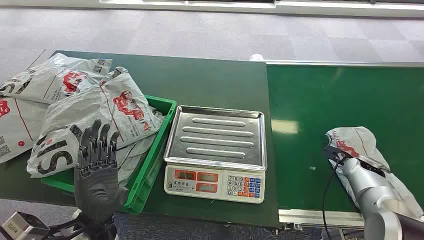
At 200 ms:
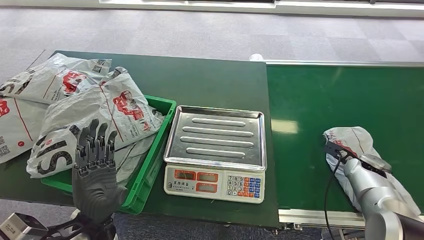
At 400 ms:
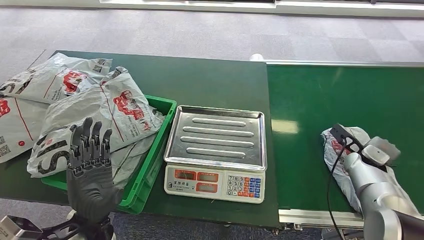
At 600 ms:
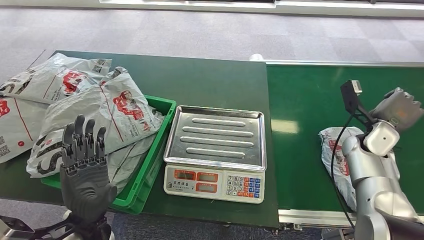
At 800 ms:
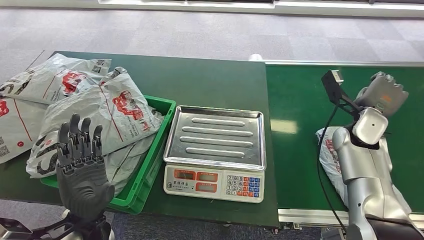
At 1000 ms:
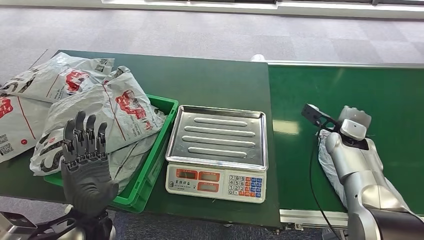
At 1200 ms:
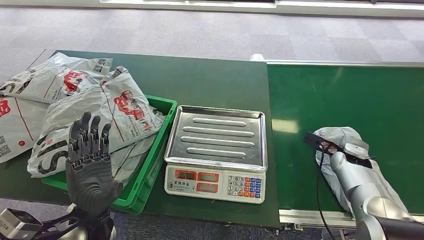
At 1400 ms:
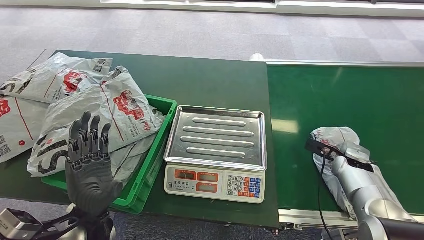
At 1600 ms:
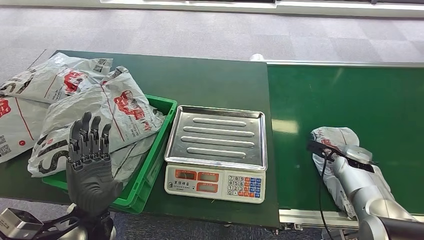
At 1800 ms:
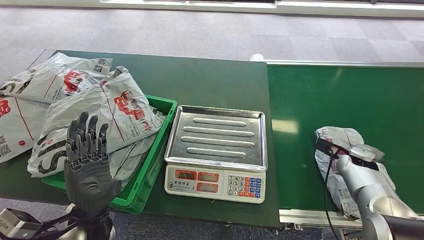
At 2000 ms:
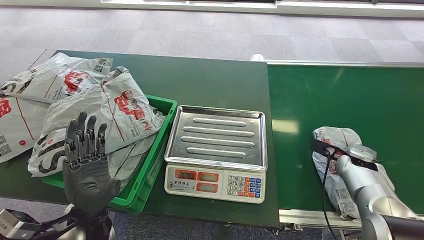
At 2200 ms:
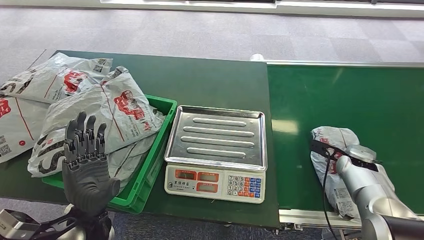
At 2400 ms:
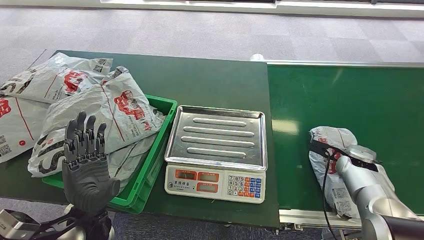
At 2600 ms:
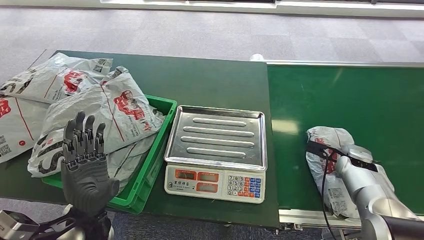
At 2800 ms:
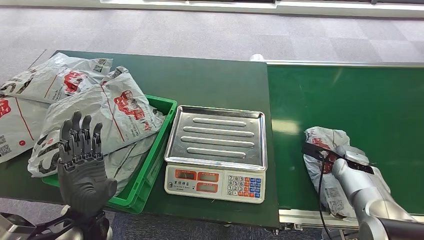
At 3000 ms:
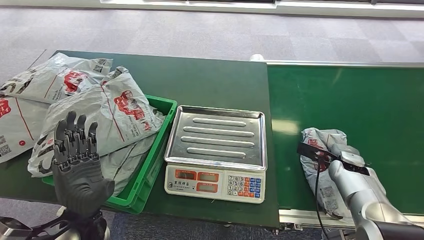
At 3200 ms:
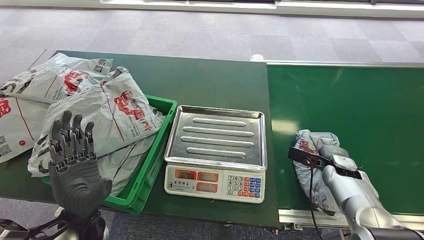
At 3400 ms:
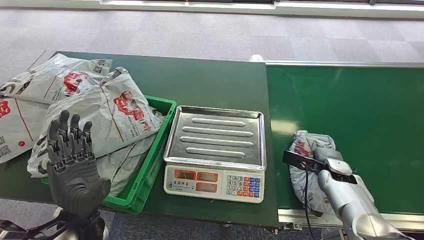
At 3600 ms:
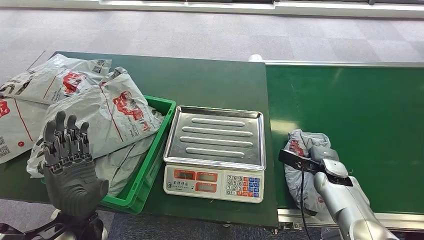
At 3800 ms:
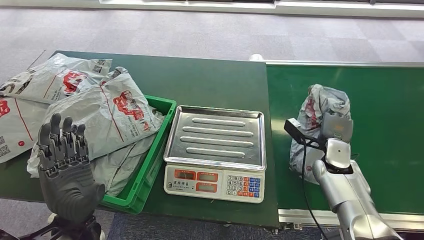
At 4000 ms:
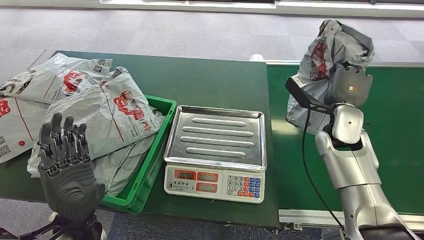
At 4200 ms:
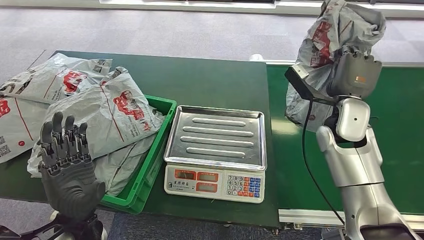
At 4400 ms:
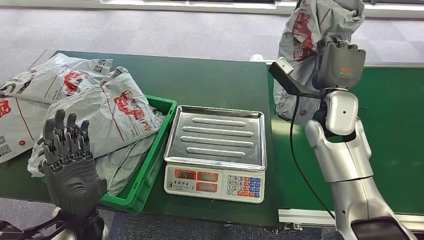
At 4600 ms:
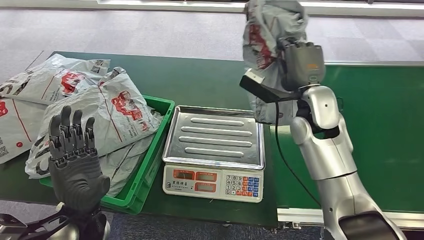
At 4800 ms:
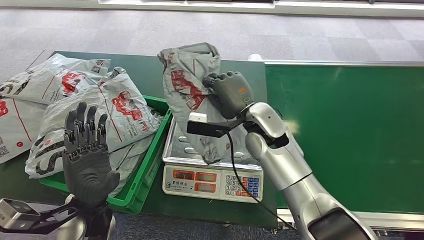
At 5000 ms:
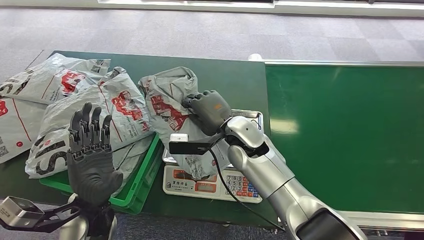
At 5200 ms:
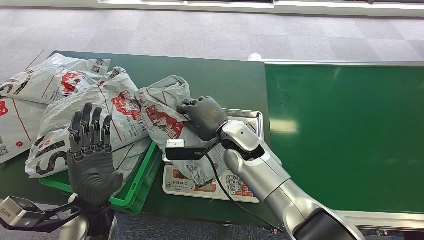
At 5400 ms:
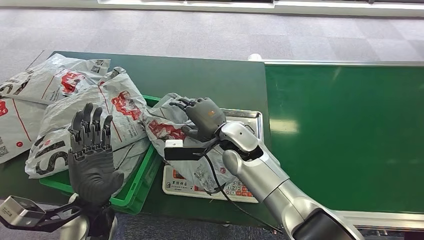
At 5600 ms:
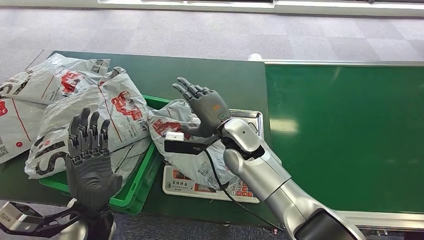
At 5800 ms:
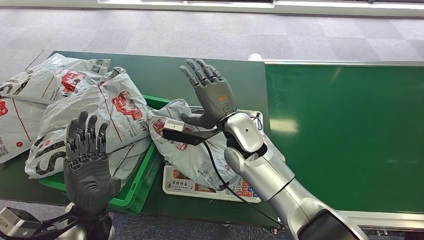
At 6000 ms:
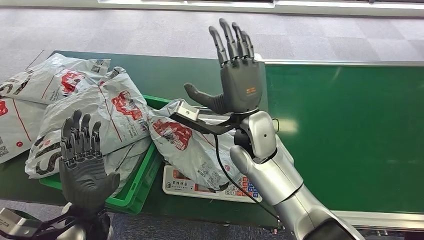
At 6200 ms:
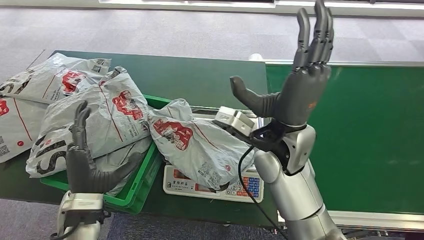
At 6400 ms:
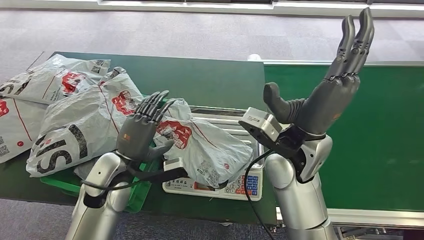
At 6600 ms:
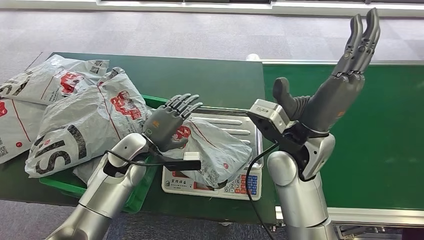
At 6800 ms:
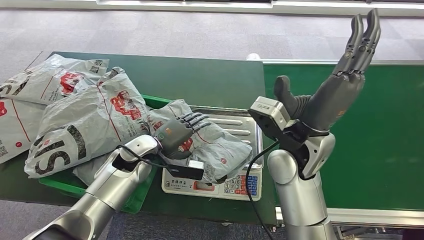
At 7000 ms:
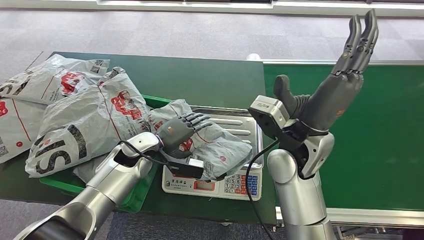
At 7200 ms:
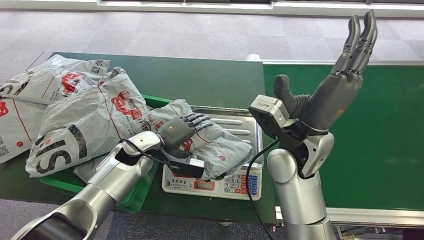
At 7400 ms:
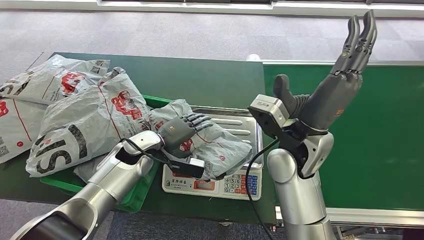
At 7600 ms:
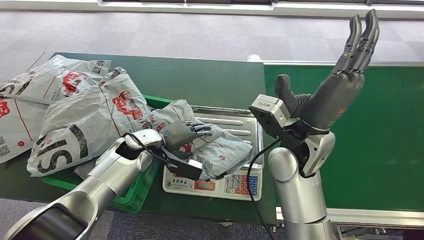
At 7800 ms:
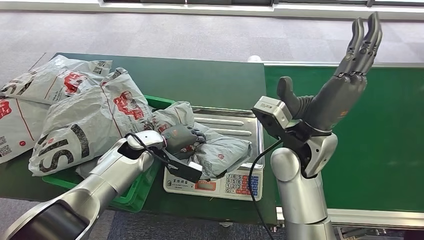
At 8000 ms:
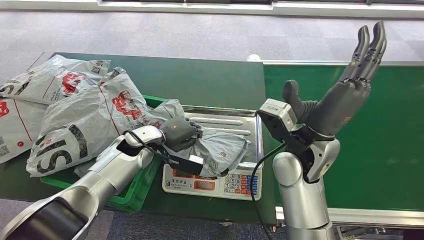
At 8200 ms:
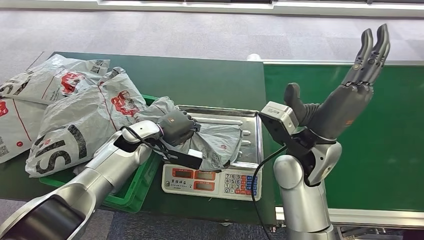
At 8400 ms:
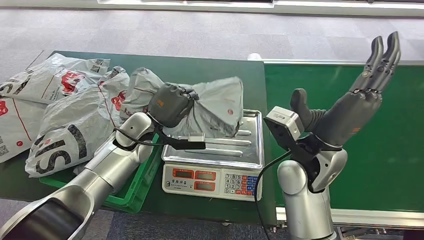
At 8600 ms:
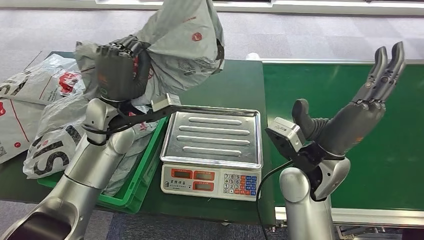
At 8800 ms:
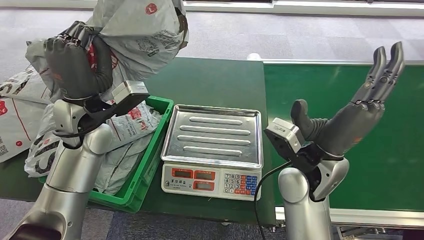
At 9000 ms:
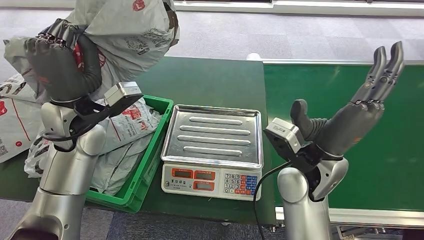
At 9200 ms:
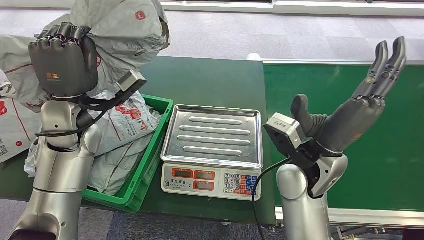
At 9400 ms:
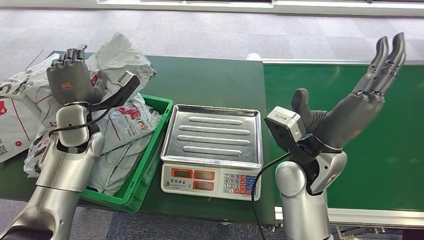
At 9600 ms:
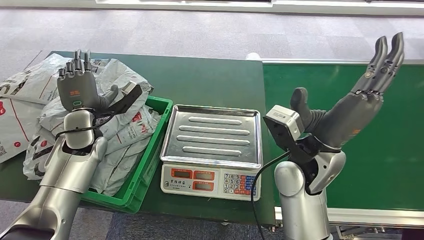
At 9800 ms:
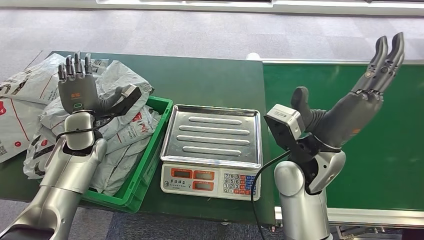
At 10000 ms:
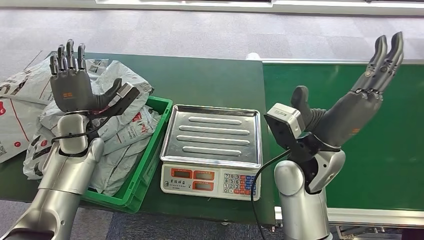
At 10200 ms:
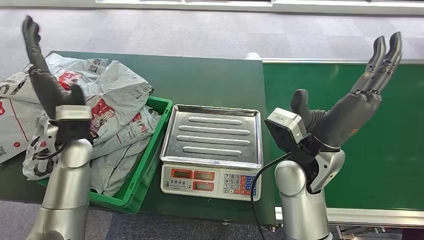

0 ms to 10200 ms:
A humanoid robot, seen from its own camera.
Step, 0 ms to 4200 ms: Pick up the package from the conveyor belt.
Step, 4400 ms to 6200 ms: Place the package onto the inbound machine.
Step, 6400 ms to 8600 ms: Pick up the package from the inbound machine.
Step, 8800 ms to 10000 ms: Place the package into the parcel locker.
1400 ms to 3000 ms: The hands move only a little.
3000 ms to 4400 ms: The right hand travels upward and to the left by approximately 25 cm.

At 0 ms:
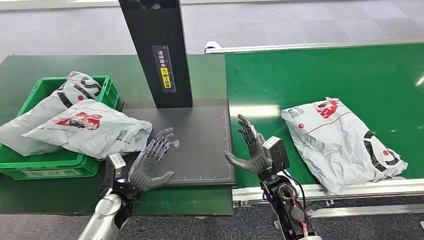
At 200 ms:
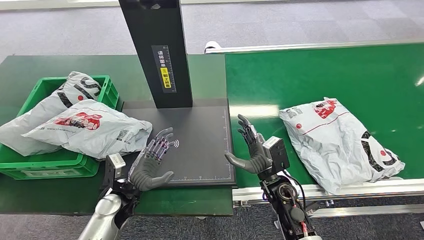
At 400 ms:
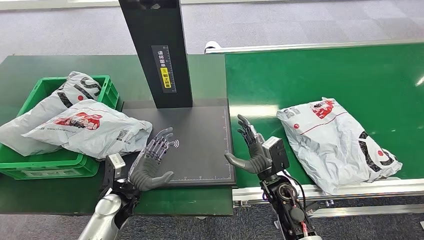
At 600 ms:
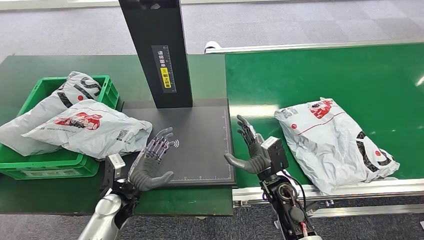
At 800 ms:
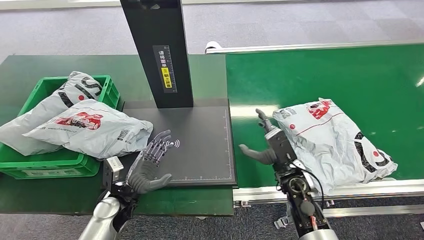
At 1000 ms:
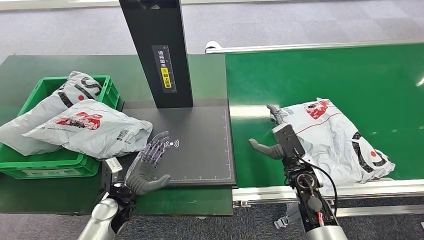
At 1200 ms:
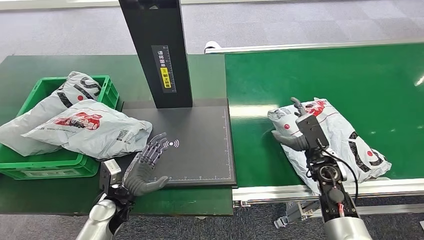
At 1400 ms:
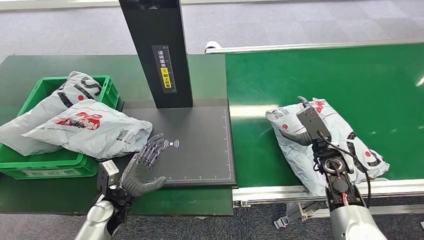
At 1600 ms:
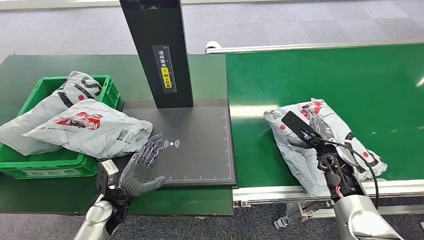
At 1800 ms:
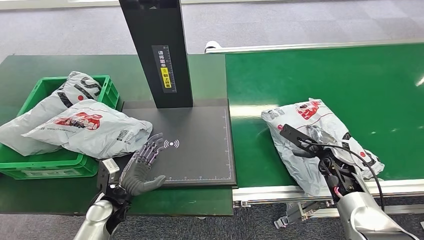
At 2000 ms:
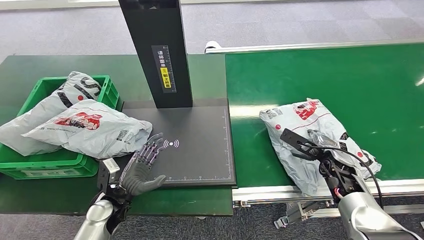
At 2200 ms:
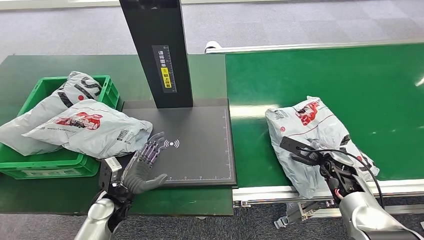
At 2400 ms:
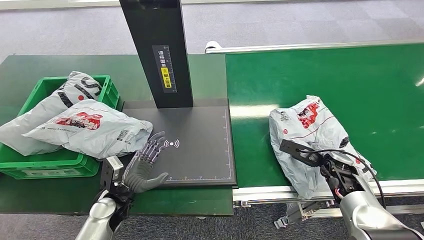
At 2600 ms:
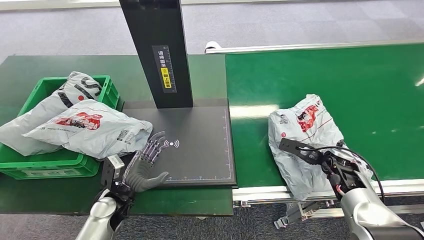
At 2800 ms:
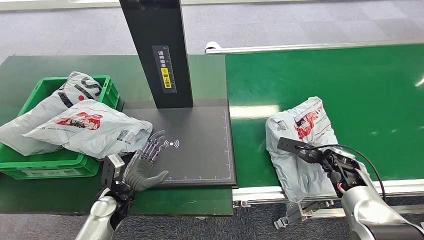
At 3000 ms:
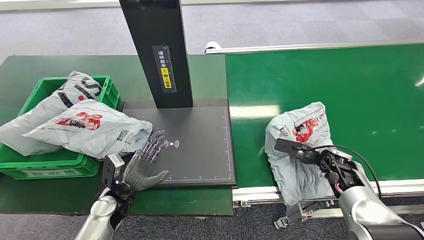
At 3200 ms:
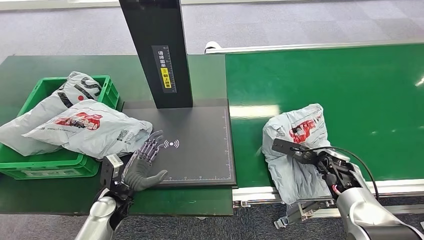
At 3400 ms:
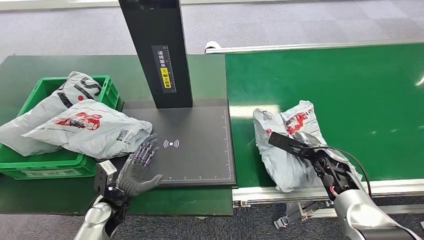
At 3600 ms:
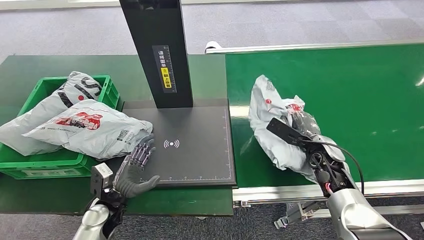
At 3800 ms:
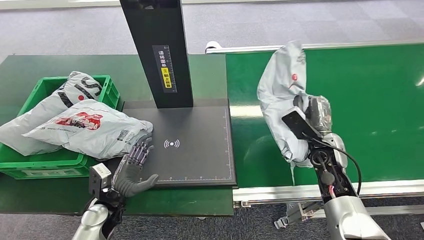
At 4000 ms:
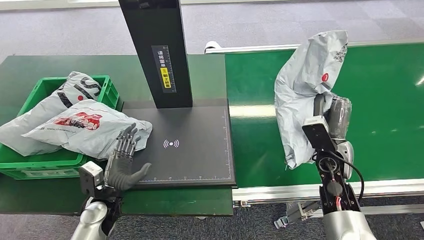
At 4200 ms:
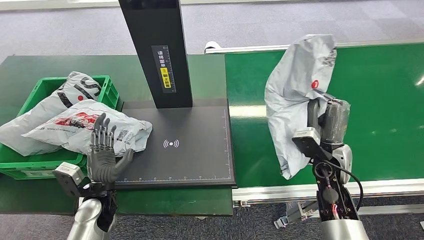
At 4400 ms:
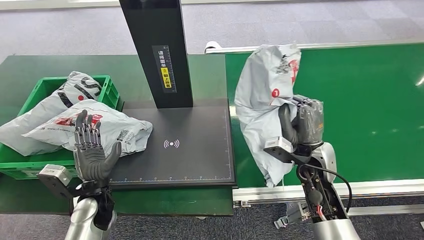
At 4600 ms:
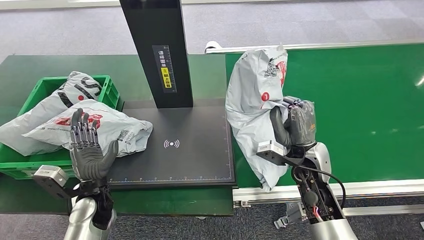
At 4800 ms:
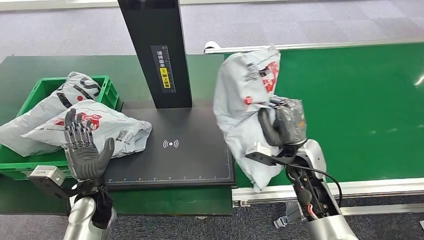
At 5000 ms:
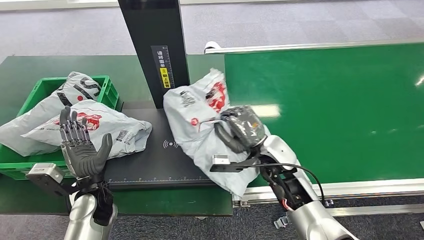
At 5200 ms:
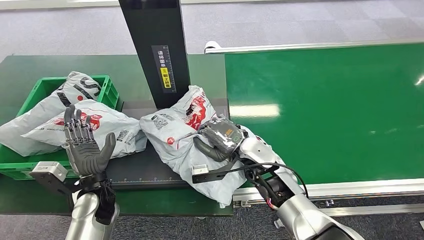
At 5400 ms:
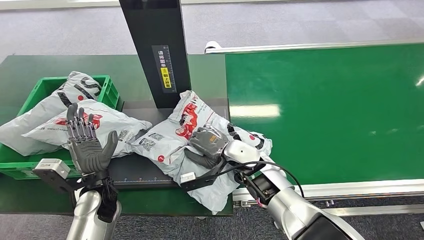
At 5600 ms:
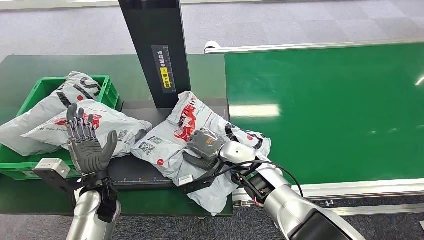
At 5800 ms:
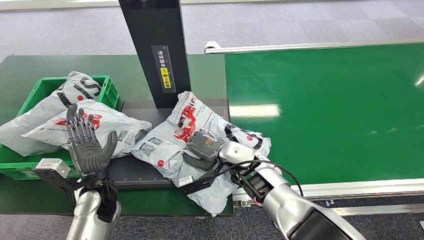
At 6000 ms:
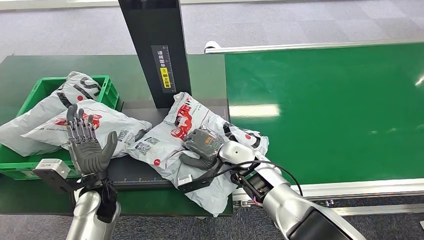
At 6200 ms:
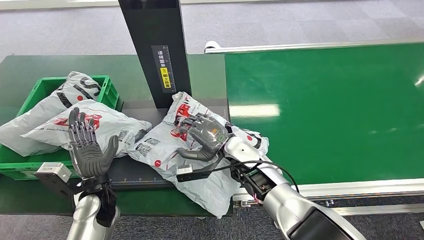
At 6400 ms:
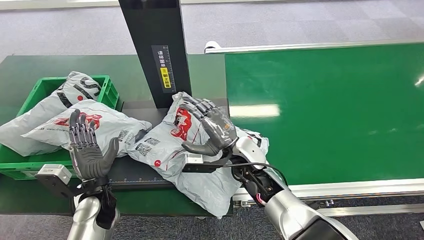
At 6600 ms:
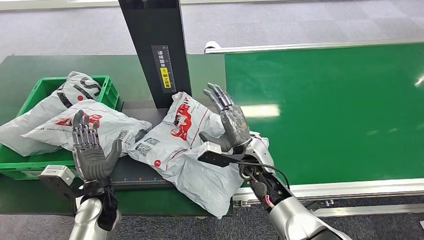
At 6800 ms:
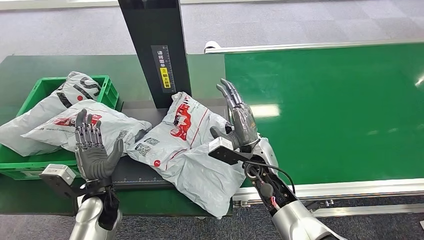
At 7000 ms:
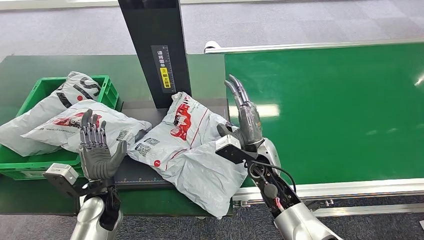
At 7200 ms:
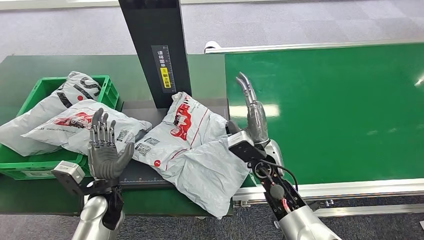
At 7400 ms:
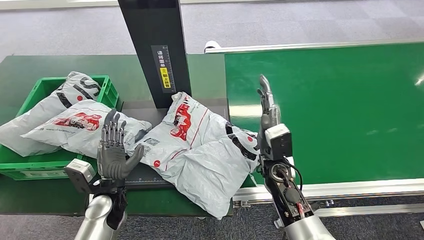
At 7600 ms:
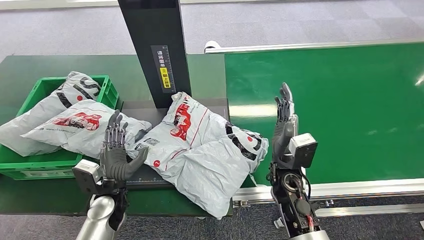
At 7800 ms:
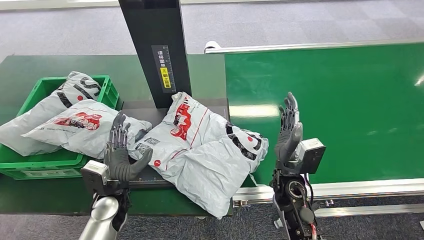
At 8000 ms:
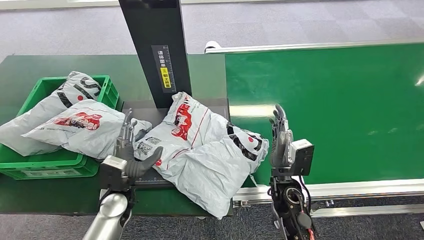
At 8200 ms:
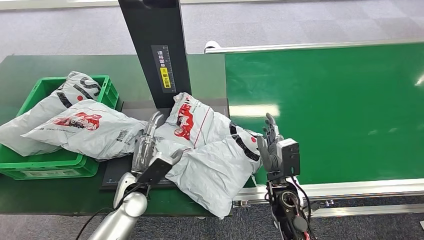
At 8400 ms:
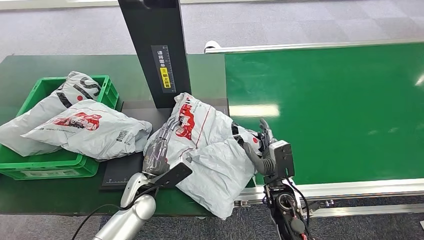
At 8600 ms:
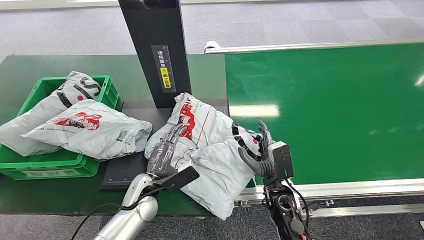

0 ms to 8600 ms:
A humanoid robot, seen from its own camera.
Step, 0 ms to 4000 ms: Pick up the package from the conveyor belt.
Step, 4400 ms to 7400 ms: Place the package onto the inbound machine.
5800 ms to 7200 ms: The right hand changes place by approximately 5 cm.
7200 ms to 8600 ms: The left hand travels to the right by about 5 cm. The right hand travels downward and backward by approximately 10 cm.
